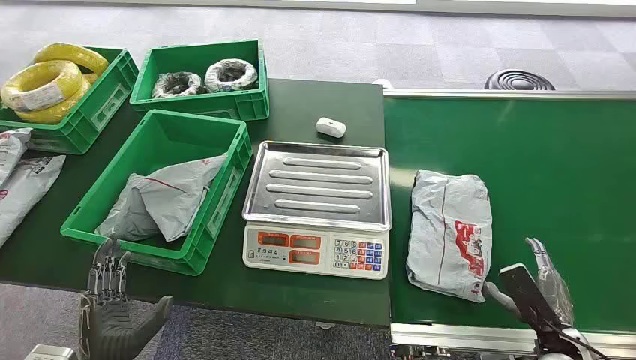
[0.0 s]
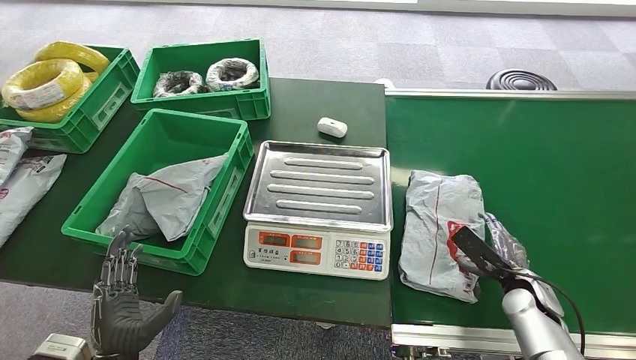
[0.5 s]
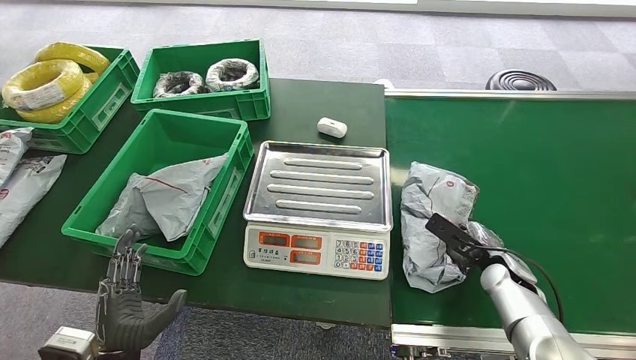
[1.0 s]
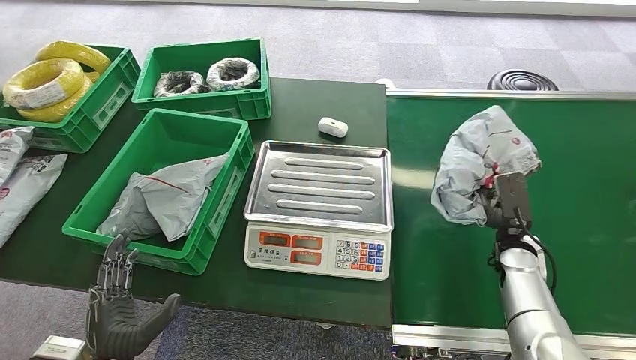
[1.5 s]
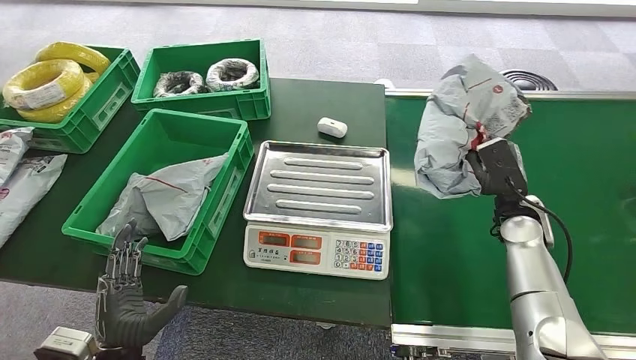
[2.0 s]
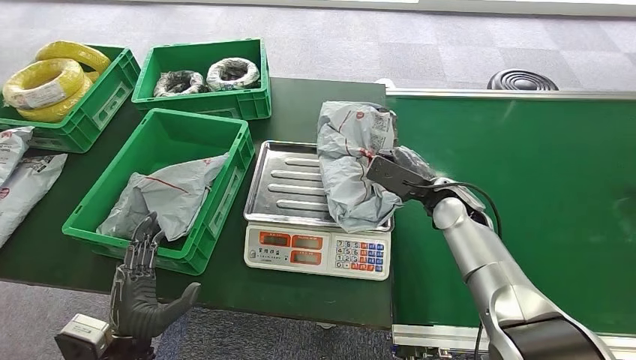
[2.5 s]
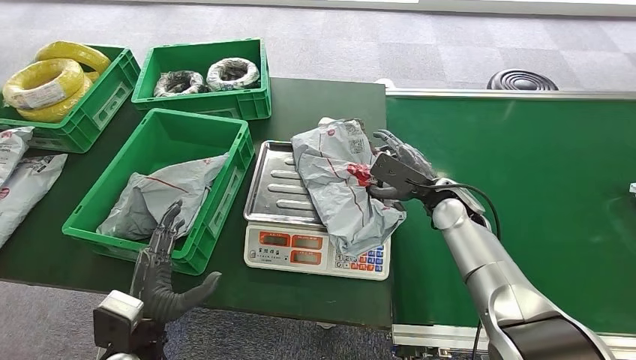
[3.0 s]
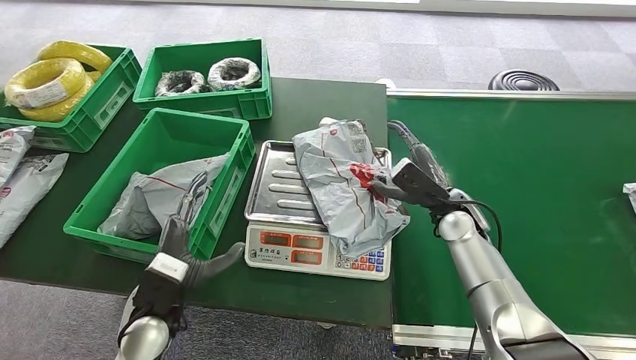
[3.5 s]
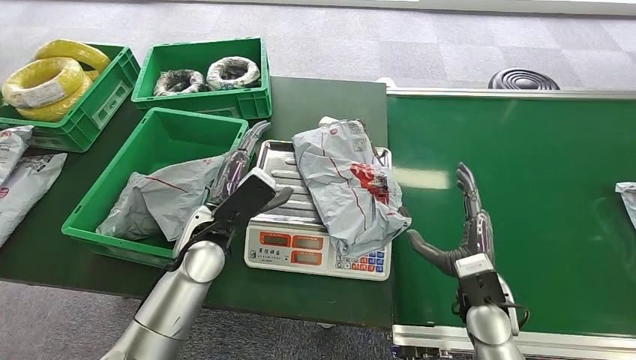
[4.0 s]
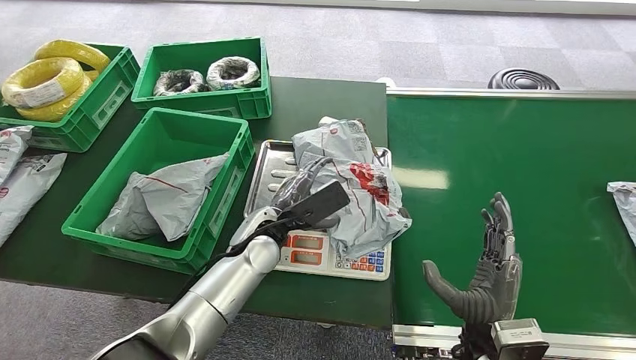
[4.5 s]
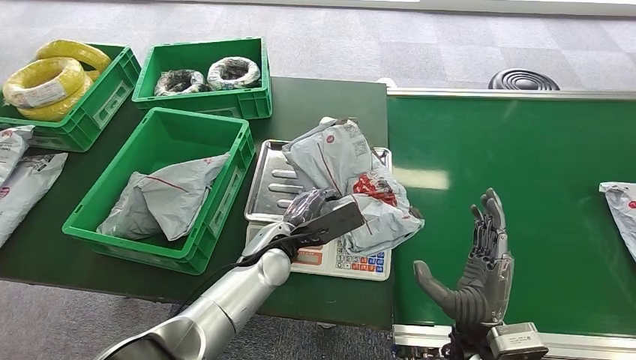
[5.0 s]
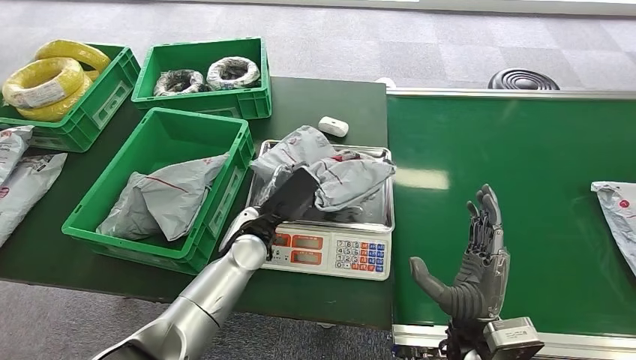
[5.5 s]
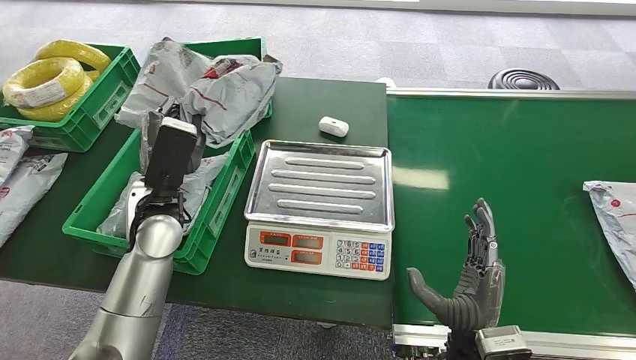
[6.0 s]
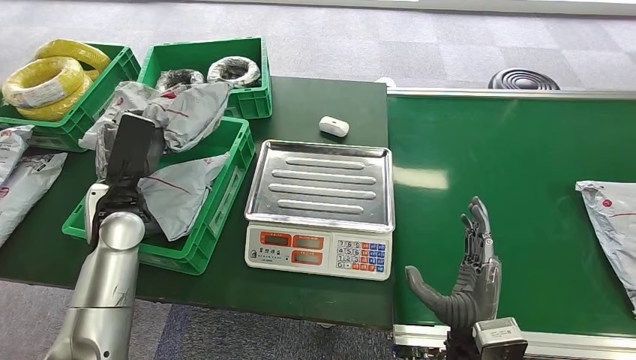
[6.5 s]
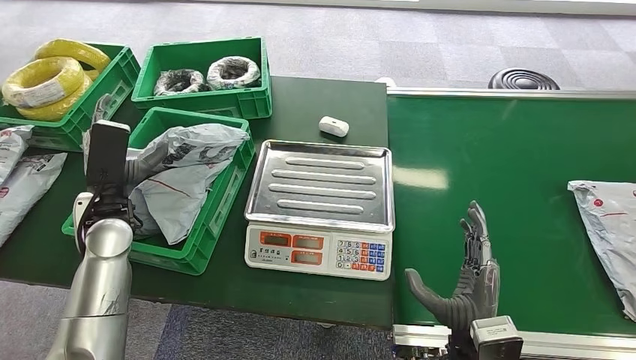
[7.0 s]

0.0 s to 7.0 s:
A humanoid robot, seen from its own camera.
Task of the whole recording: Weigh the package on the weighing device and place it in the left basket.
Step, 0.0 to 1.5 s: Pick up the package from the conveyor belt.
Step, 2.0 to 3.5 s: Place the package onto the inbound machine.
Step, 4.5 to 6.0 s: Pick up the package from the inbound machine.
Step, 6.5 to 7.0 s: Place the package into the parcel locker.
